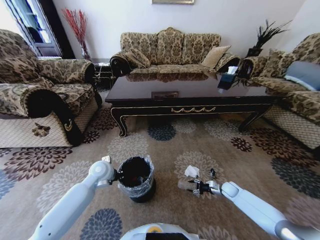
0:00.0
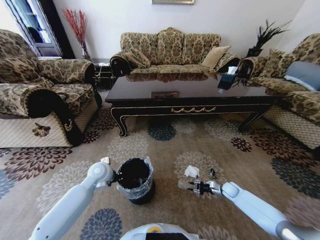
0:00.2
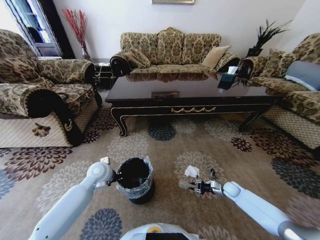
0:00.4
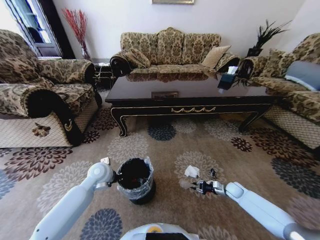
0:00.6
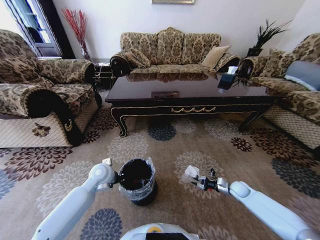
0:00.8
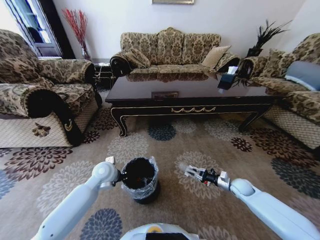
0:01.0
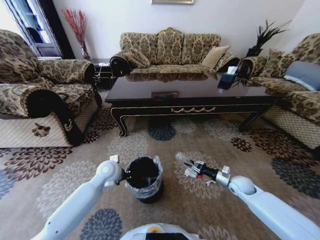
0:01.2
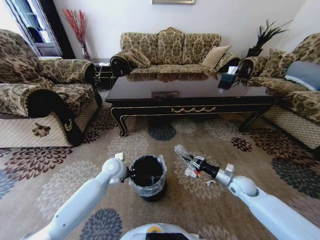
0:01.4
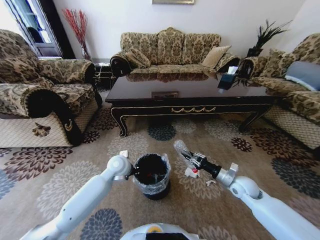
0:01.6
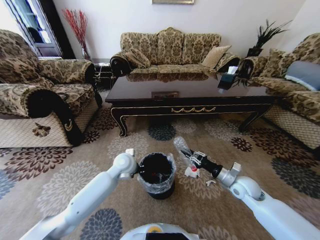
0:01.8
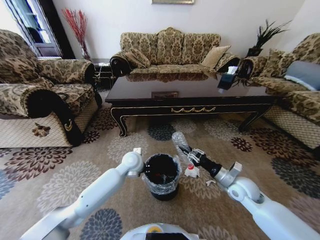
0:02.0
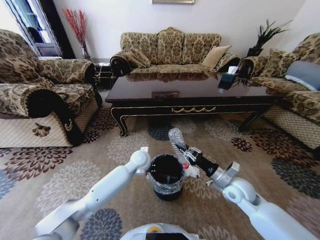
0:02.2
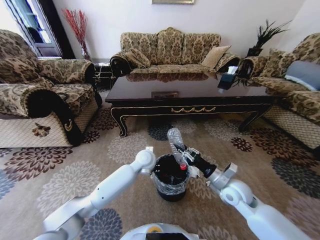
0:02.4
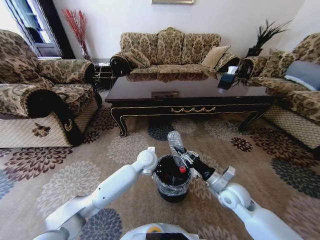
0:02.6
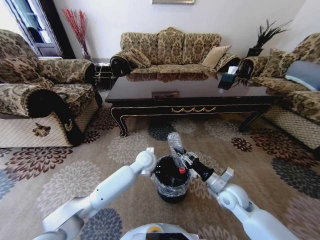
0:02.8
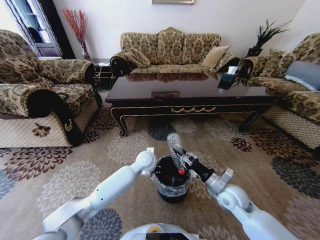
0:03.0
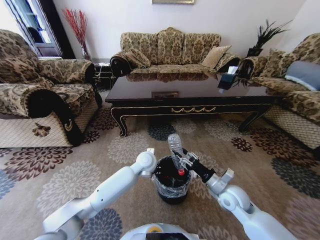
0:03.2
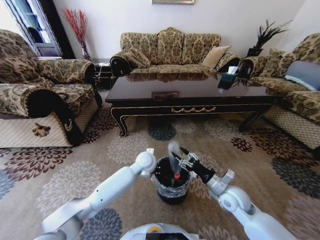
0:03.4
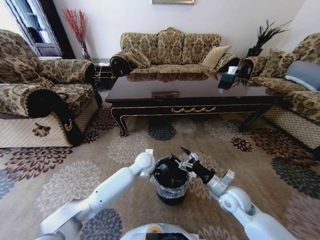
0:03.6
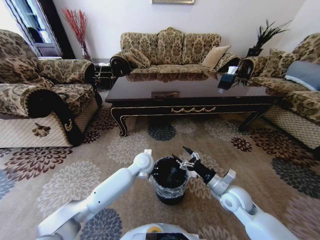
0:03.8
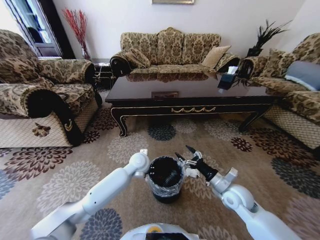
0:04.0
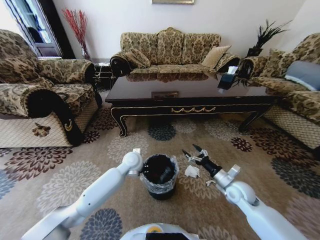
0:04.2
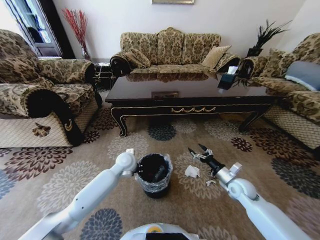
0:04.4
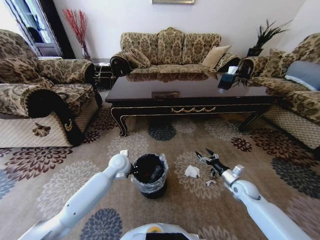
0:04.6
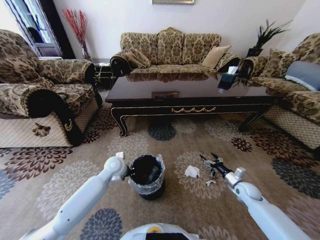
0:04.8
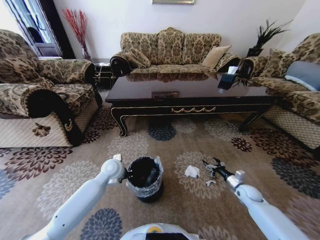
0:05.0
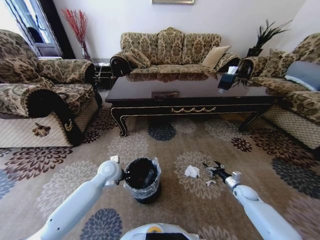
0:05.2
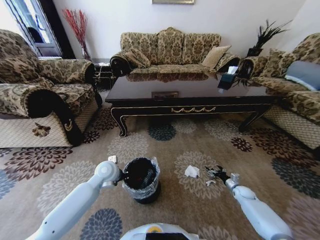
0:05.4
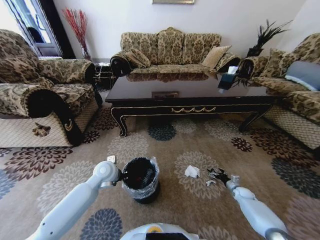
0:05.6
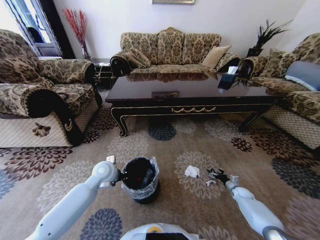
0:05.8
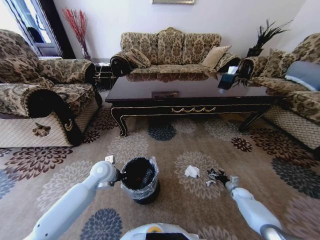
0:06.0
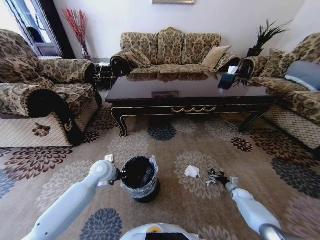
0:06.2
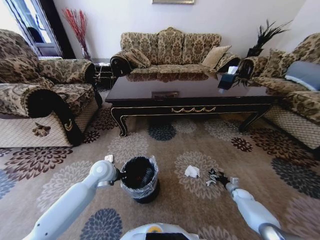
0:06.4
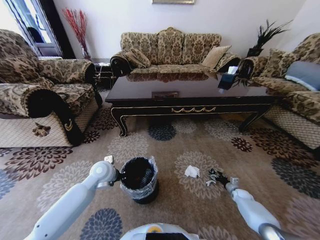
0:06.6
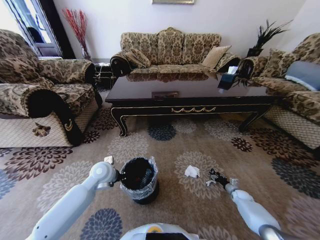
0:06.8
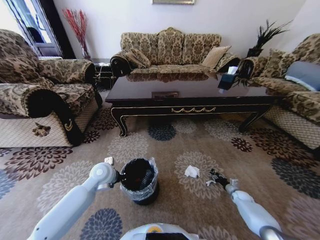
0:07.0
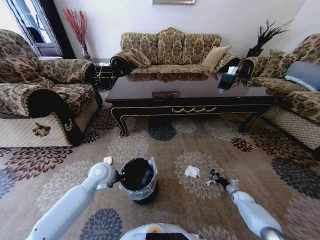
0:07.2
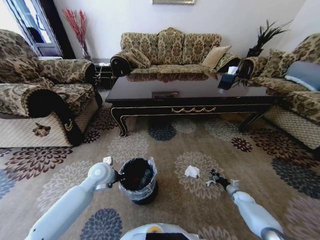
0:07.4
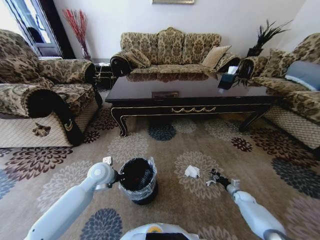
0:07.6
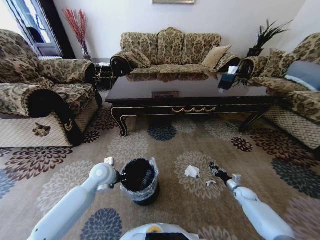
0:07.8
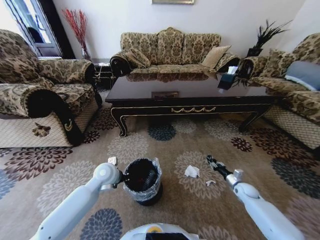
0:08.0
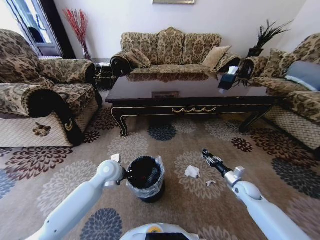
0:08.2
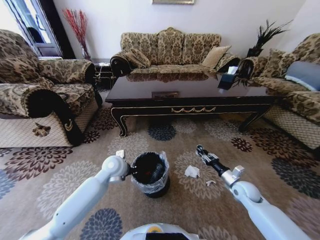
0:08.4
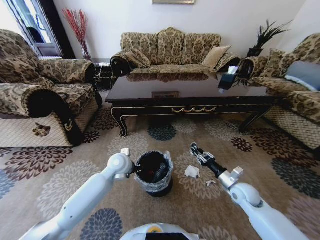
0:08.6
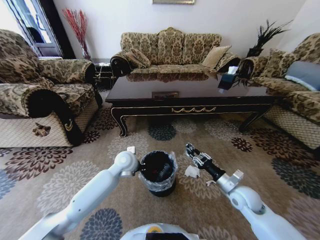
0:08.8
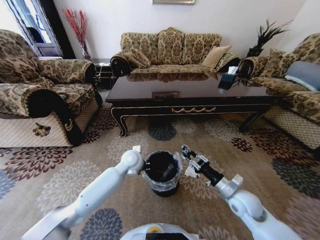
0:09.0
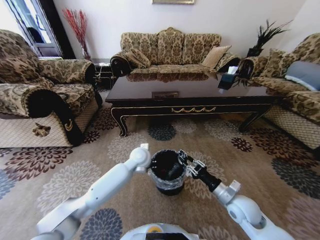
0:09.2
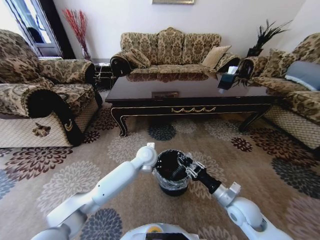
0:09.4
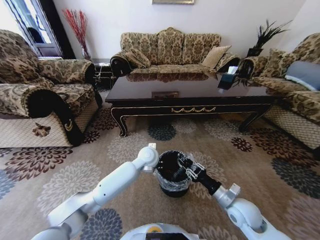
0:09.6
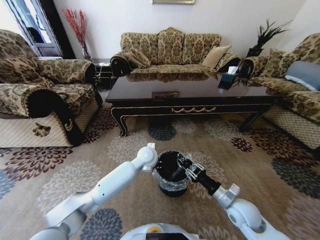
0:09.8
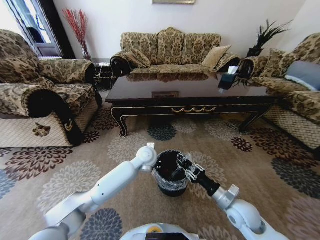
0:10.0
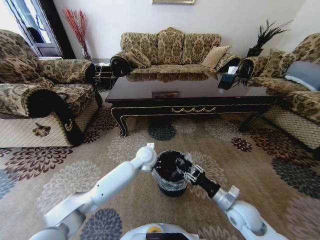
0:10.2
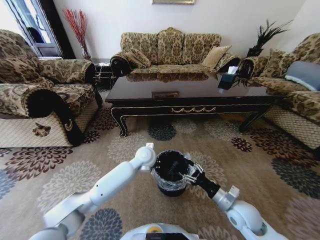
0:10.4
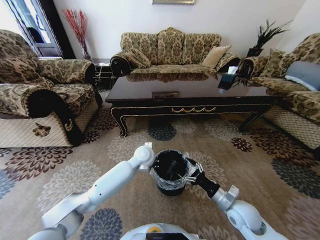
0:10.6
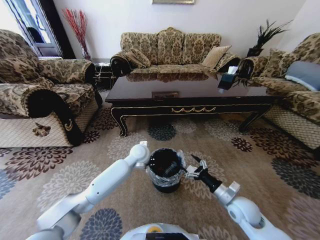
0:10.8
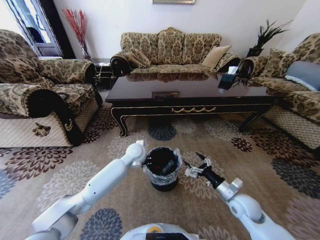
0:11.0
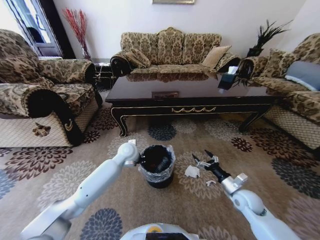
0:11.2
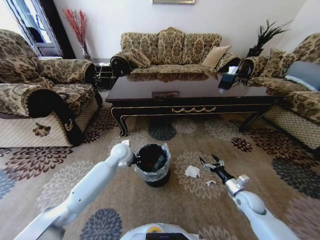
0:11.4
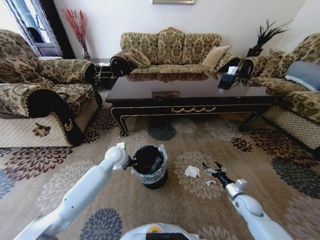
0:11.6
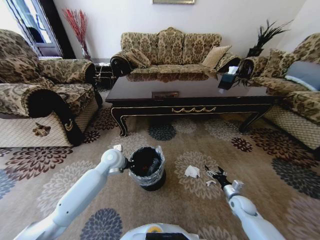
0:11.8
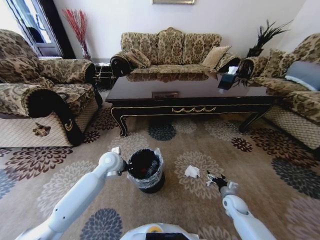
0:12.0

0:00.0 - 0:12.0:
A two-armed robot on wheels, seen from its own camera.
Task of the whole recording: Move to the front of the table and pick up the trash from the floor, then place it into the trash bin.
0:00.0 - 0:01.6: The right gripper is displaced upward by about 20 cm, and closes its fingers, while the left gripper moves to the right, some 5 cm.
0:01.6 - 0:03.0: The left gripper is displaced to the right by about 10 cm. The right gripper is displaced to the left by some 10 cm.
0:03.0 - 0:04.4: The left gripper is displaced to the left by about 10 cm. The right gripper heads to the right, covering about 10 cm, and opens up.
0:04.4 - 0:06.0: The left gripper heads to the left and backward, covering some 10 cm. Meanwhile the right gripper travels downward and to the right by roughly 25 cm.
0:06.0 - 0:07.6: The right gripper closes its fingers.
0:07.6 - 0:09.0: The left gripper goes about 15 cm to the right and forward; the right gripper heads upward and to the left, covering about 30 cm.
0:09.0 - 0:10.4: The right gripper opens up, while the left gripper moves to the right, some 5 cm.
0:10.4 - 0:12.0: The right gripper is displaced downward, to the right and forward by roughly 20 cm. The left gripper shifts roughly 15 cm to the left.

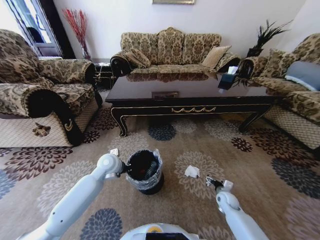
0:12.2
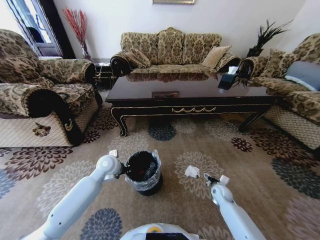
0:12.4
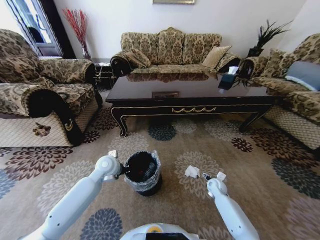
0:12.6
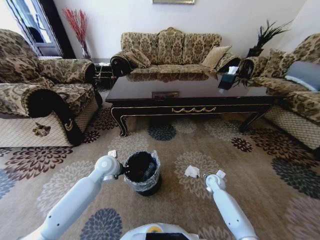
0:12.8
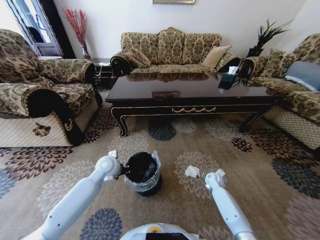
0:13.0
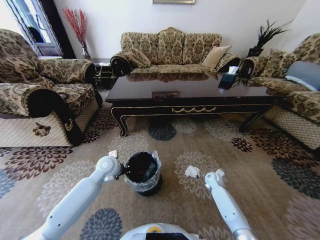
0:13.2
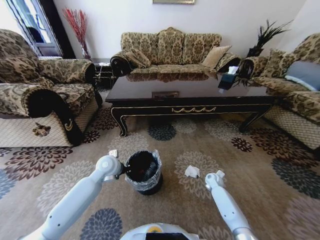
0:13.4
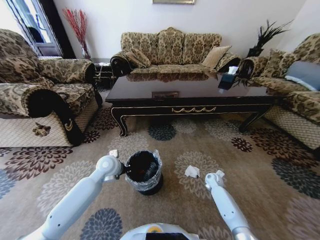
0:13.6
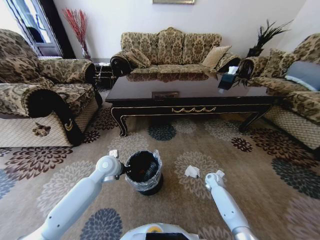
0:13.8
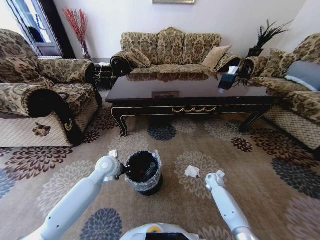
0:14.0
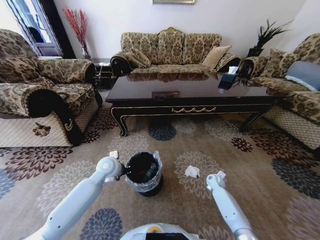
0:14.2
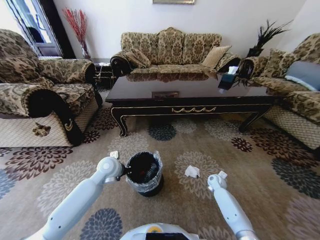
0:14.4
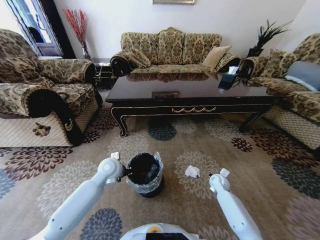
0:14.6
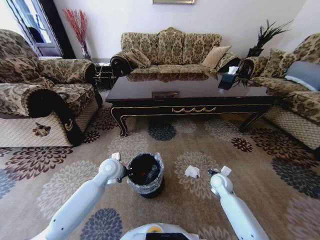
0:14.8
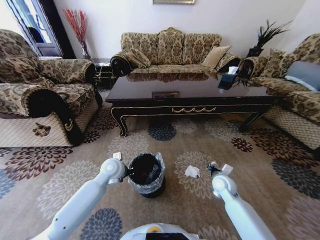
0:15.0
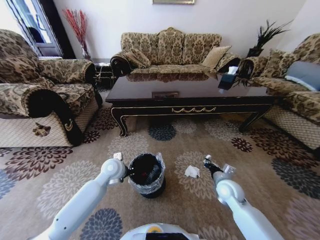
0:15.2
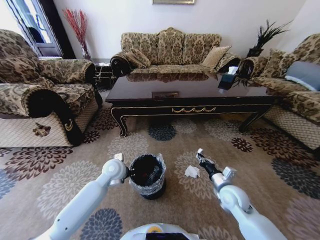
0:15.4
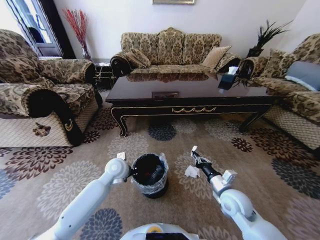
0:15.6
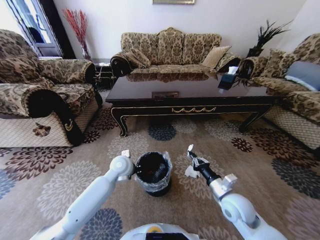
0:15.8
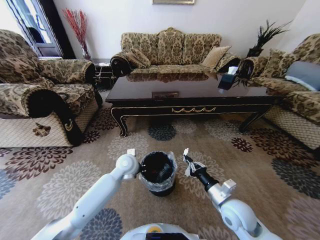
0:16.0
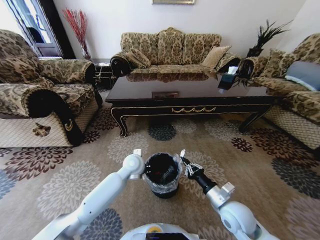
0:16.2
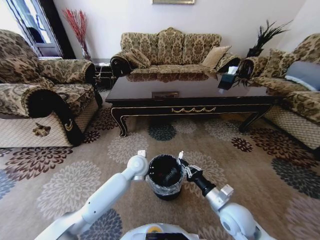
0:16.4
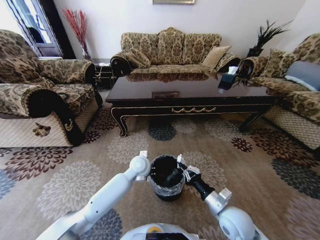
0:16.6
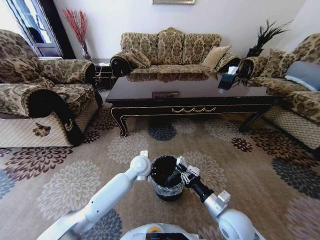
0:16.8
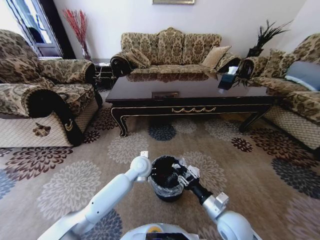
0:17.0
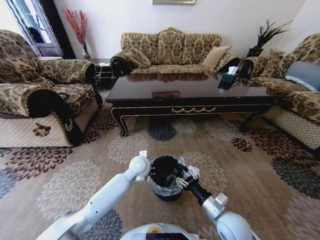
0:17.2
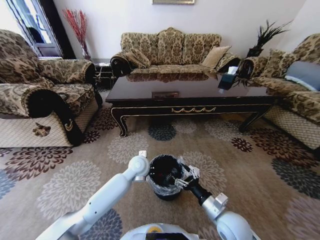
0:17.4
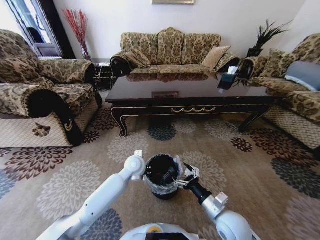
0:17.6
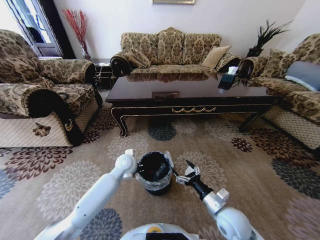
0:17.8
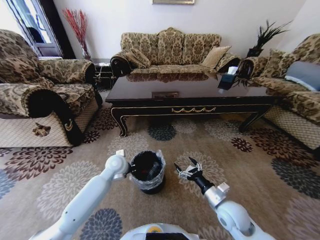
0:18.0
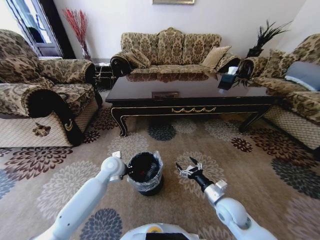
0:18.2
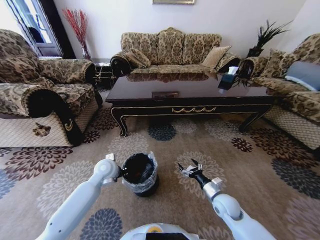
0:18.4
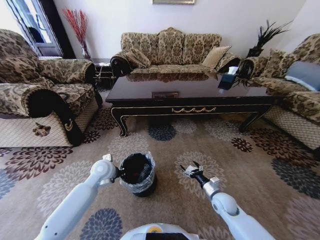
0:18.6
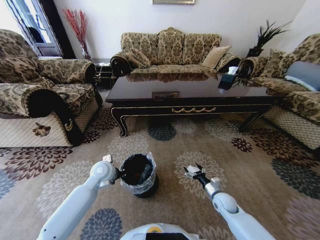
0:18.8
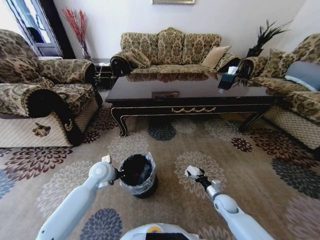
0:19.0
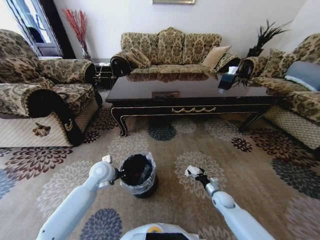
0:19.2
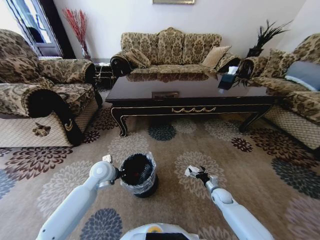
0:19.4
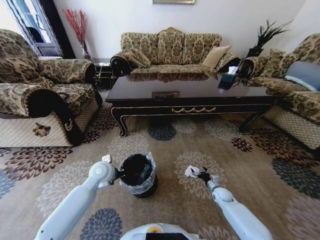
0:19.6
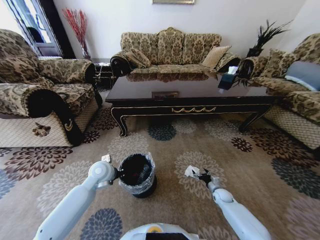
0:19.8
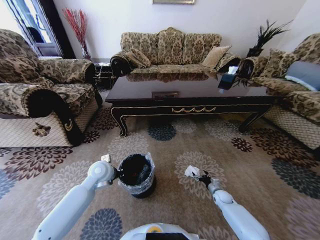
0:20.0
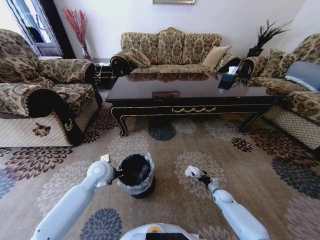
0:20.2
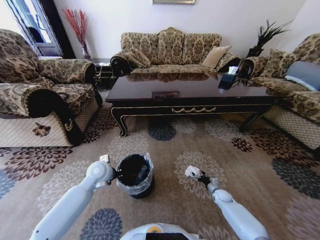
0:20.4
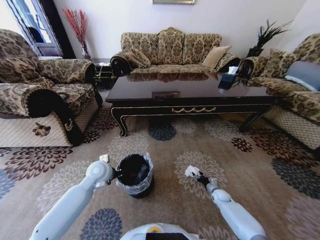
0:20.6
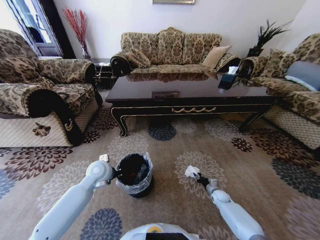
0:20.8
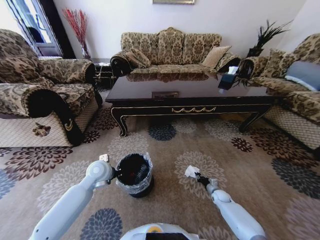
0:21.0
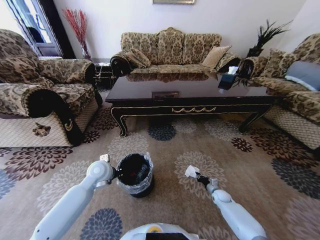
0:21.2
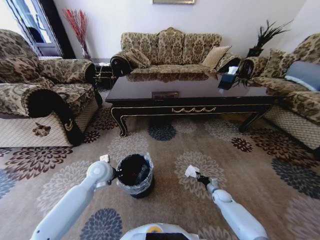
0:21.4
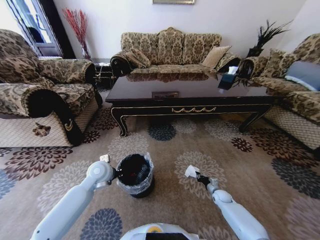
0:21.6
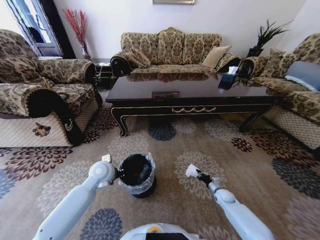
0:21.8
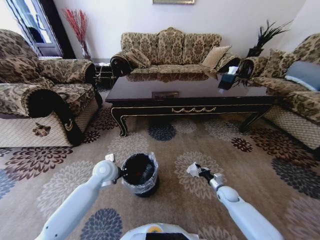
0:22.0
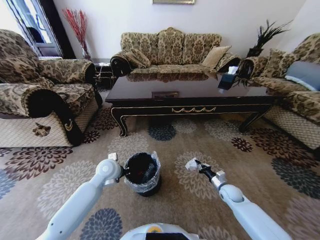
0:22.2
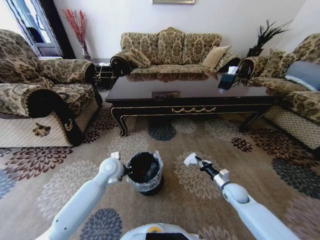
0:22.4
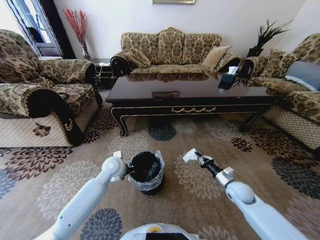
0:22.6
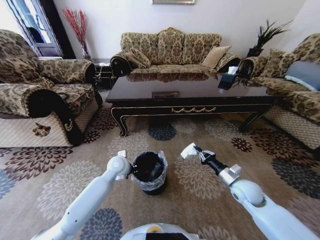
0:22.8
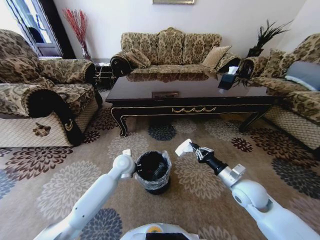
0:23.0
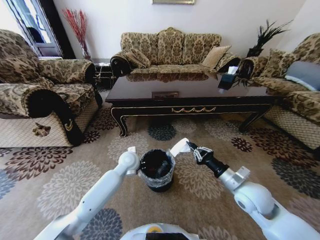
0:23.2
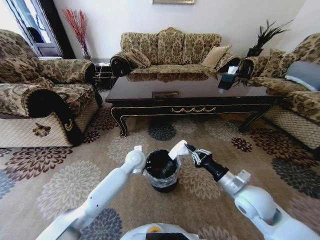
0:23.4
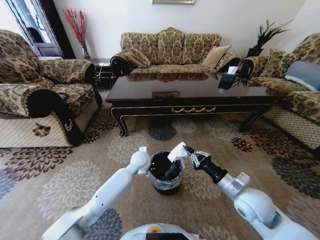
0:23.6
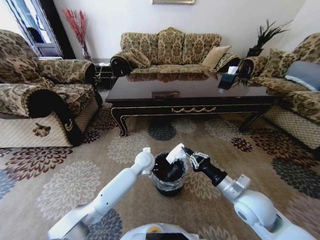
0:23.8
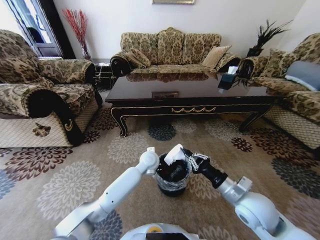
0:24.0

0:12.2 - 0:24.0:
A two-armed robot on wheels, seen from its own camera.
Task of the whole recording: Move to the front of the table and pick up the trash from the floor, then place it into the trash bin.
0:12.2 - 0:13.6: The right gripper moves forward, roughly 10 cm, and closes.
0:13.6 - 0:15.2: The right gripper shifts approximately 20 cm upward and backward, and closes its fingers.
0:15.2 - 0:16.6: The left gripper goes about 10 cm to the right. Meanwhile the right gripper goes roughly 15 cm backward and to the left.
0:16.6 - 0:18.2: The left gripper moves to the left, roughly 15 cm. Meanwhile the right gripper changes place by roughly 5 cm, and opens its fingers.
0:18.2 - 0:19.6: The right gripper moves downward, to the right and forward, approximately 20 cm.
0:19.6 - 0:21.0: The right gripper closes its fingers.
0:21.0 - 0:22.6: The left gripper travels to the right by roughly 5 cm, while the right gripper travels upward by about 20 cm.
0:22.6 - 0:24.0: The left gripper moves to the right, roughly 15 cm. The right gripper travels upward, backward and to the left by some 20 cm.
